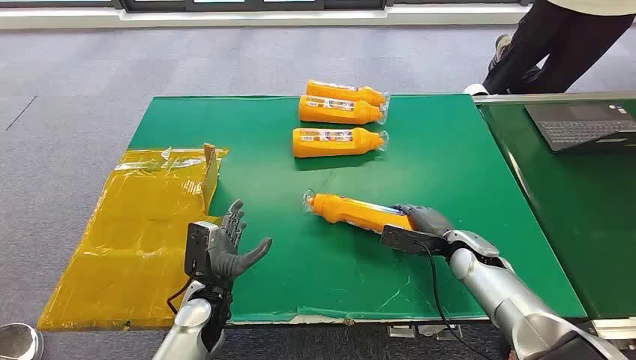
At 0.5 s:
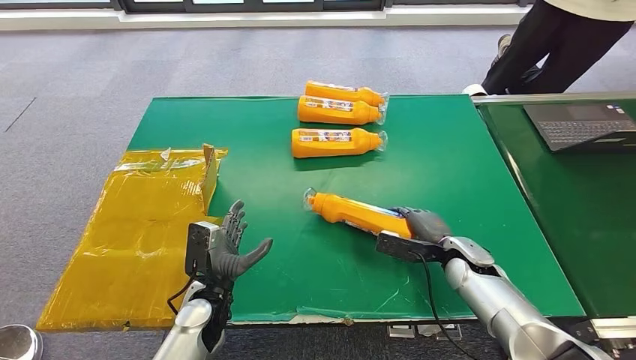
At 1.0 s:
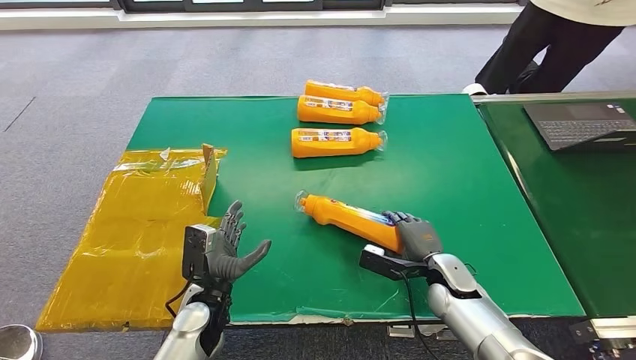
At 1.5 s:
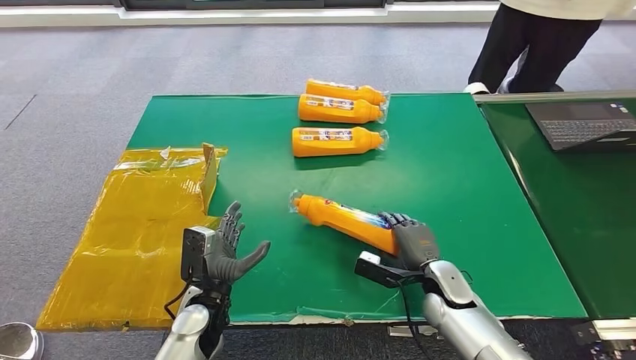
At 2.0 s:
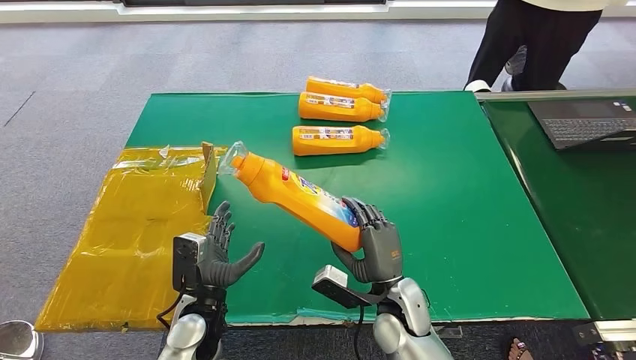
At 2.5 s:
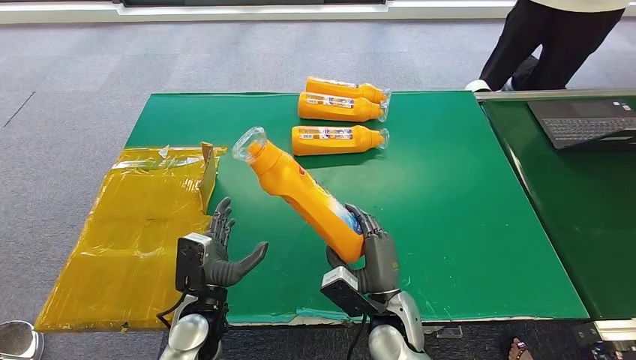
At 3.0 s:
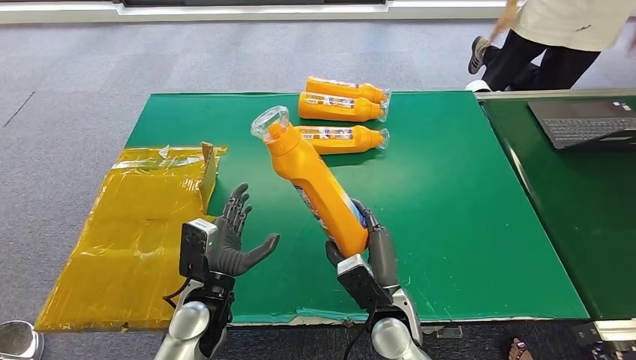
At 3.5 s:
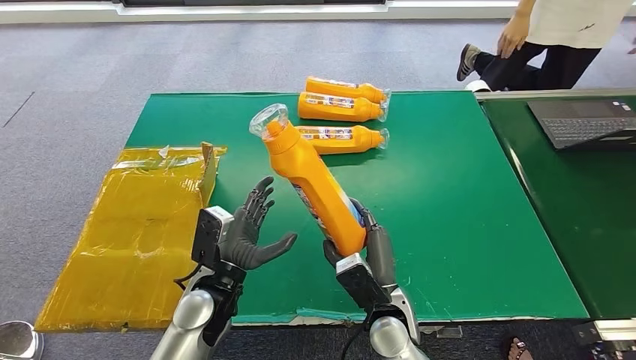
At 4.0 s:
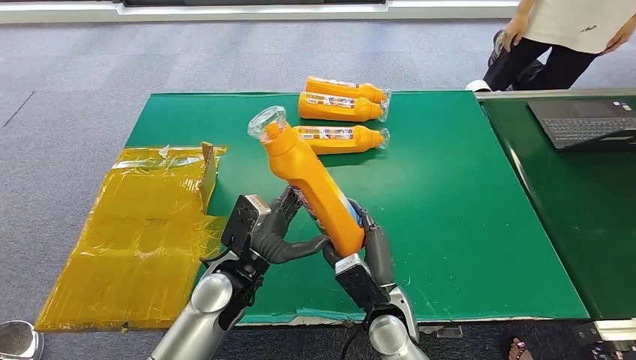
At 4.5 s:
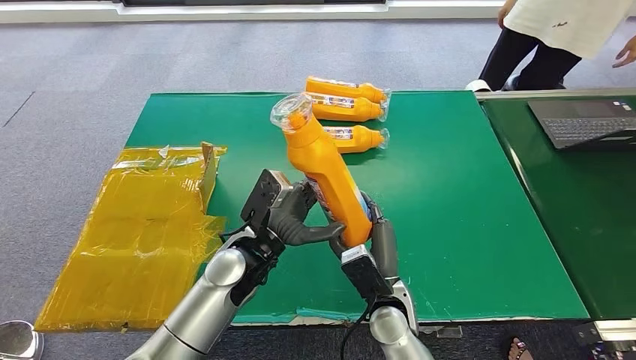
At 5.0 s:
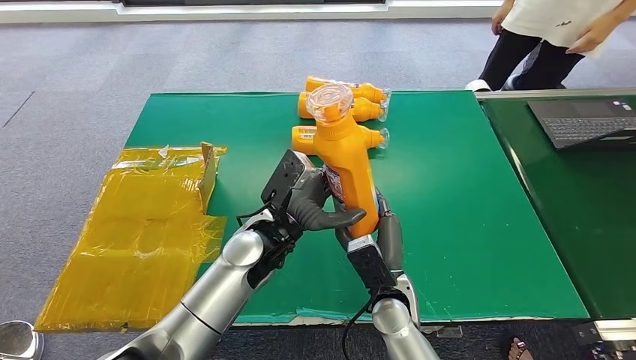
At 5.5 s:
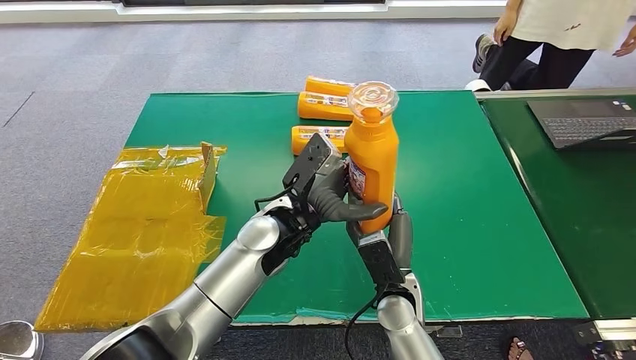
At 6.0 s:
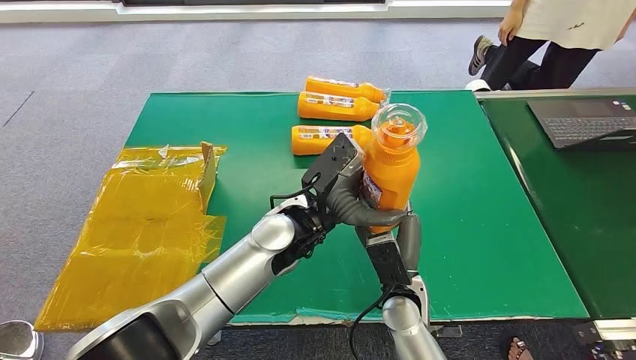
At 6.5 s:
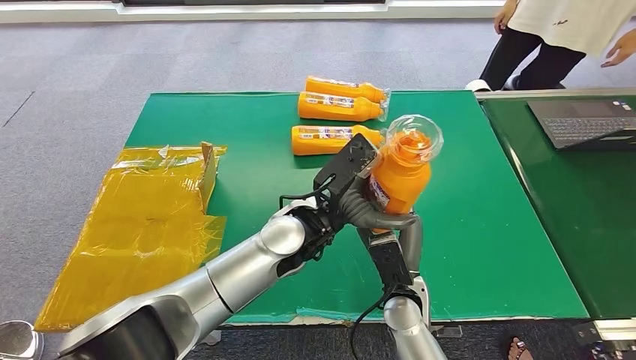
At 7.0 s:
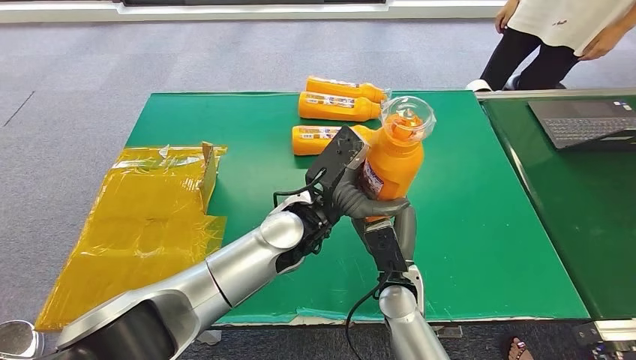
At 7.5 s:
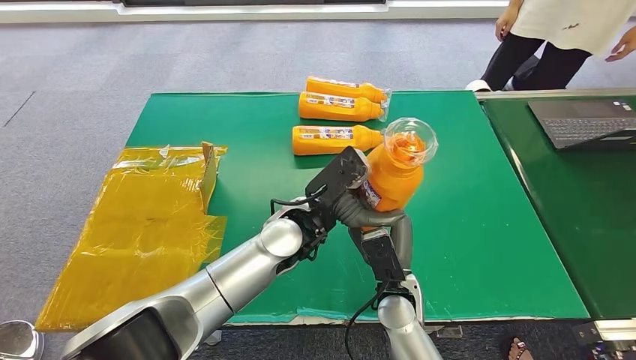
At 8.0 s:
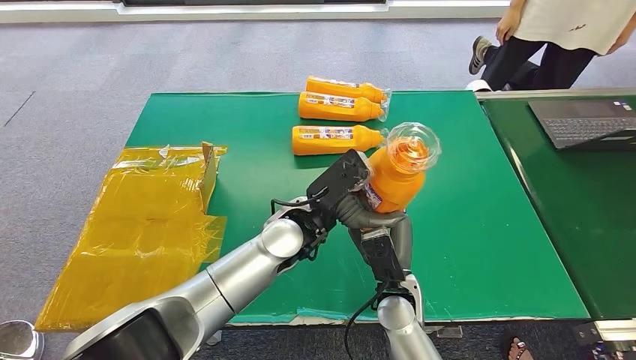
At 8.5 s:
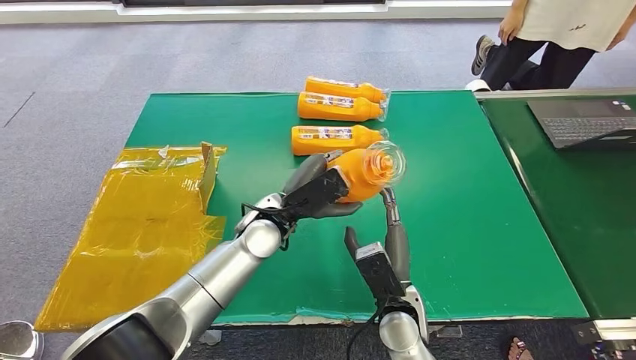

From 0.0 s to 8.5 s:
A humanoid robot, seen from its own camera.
Step, from 0.0 s to 2.0 s: Pick up the bottle from the table.
Step, from 2.5 s to 8.5 s: Turn the bottle to the front side.
From 2.0 s to 4.0 s: The left hand shifts approximately 10 cm upward, to the right and forward.
From 4.0 s to 6.5 s: The left hand goes about 15 cm to the right and upward.
From 6.5 s to 8.5 s: The left hand heads to the left and downward, covering roughly 10 cm.

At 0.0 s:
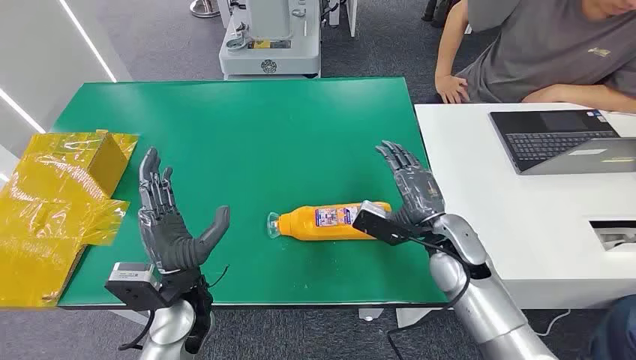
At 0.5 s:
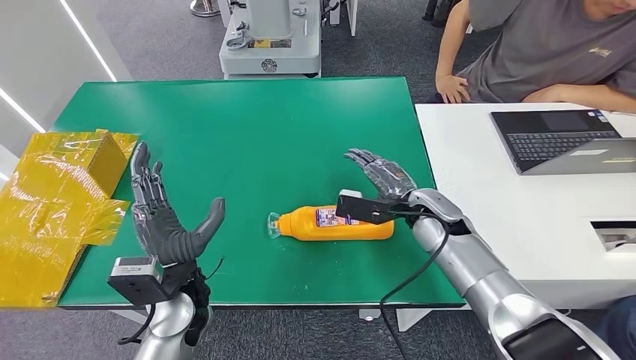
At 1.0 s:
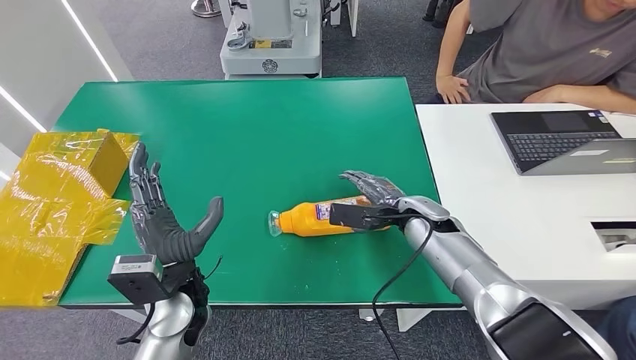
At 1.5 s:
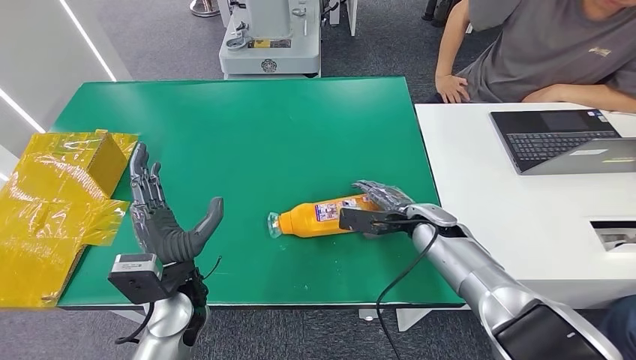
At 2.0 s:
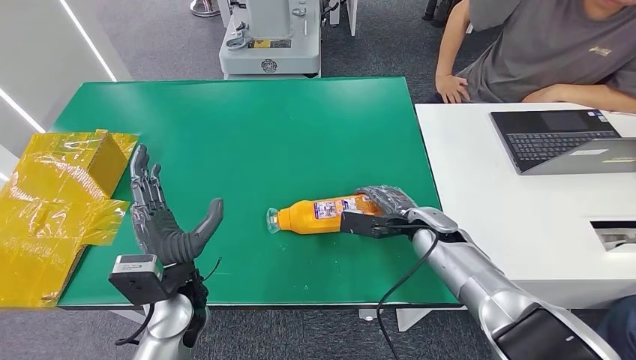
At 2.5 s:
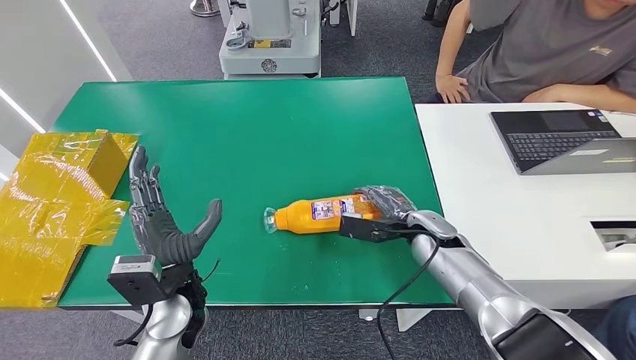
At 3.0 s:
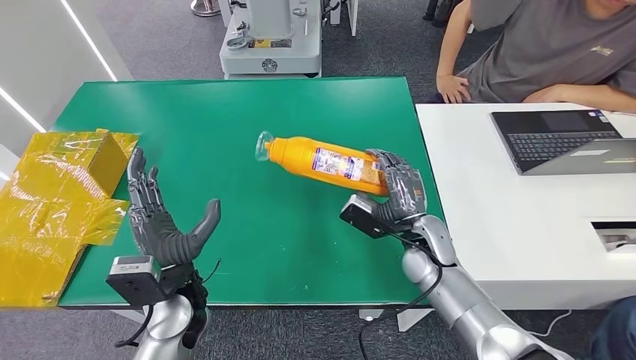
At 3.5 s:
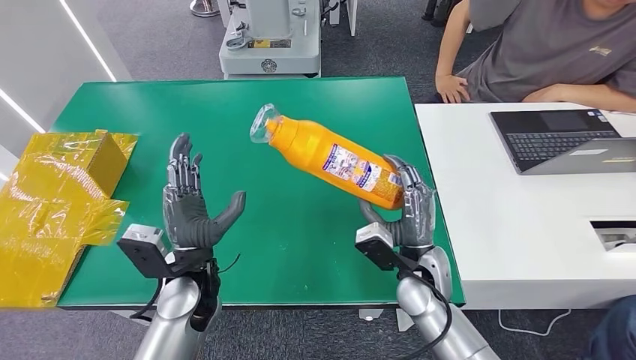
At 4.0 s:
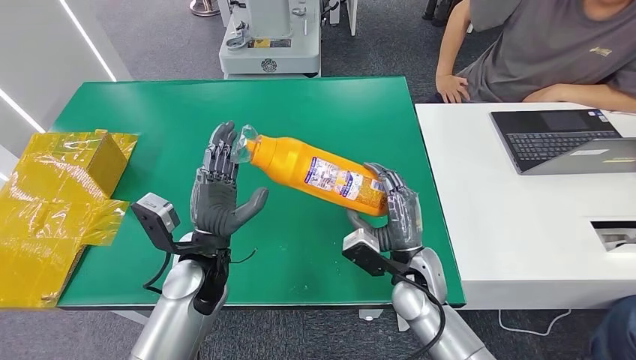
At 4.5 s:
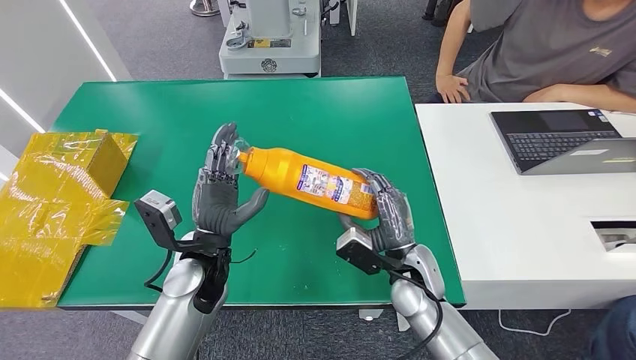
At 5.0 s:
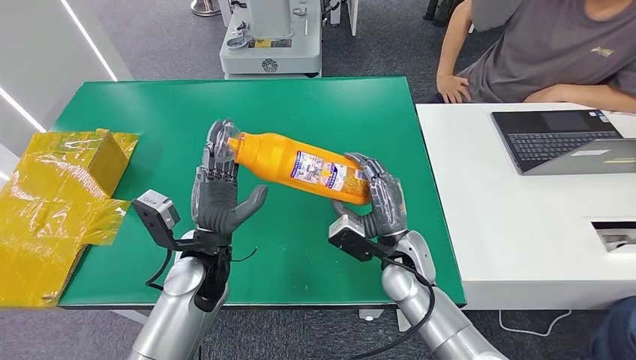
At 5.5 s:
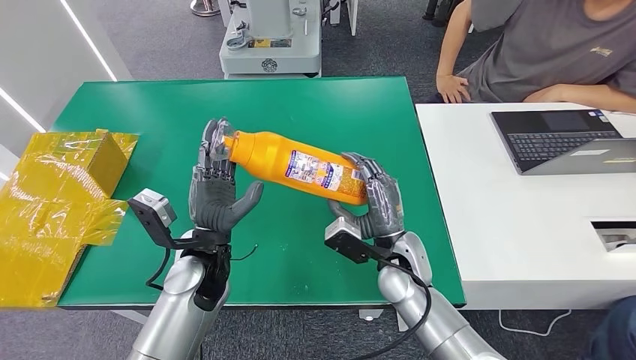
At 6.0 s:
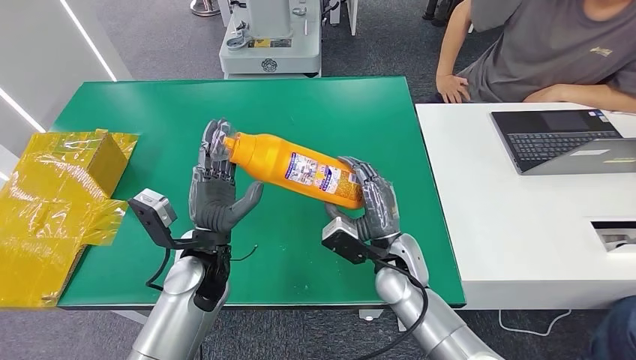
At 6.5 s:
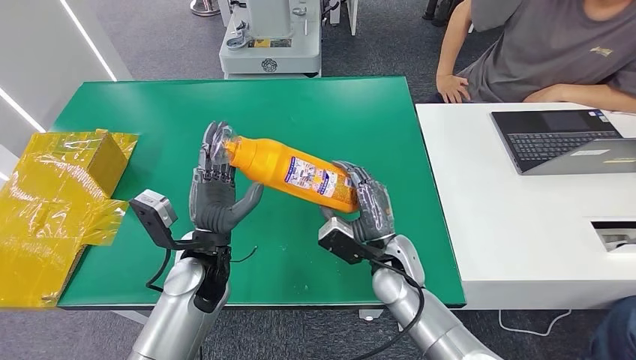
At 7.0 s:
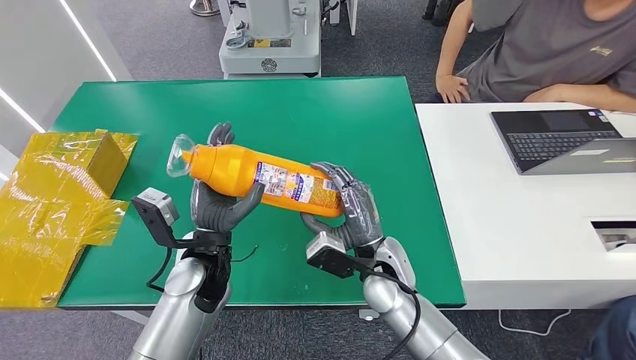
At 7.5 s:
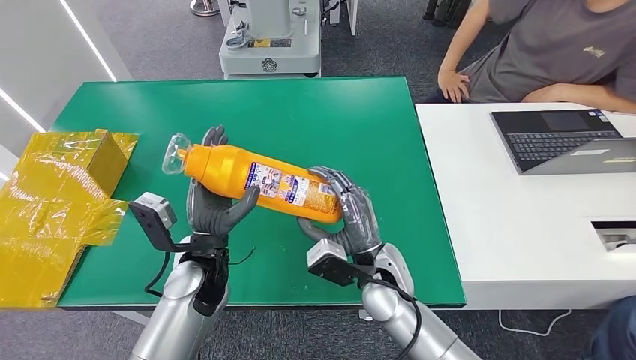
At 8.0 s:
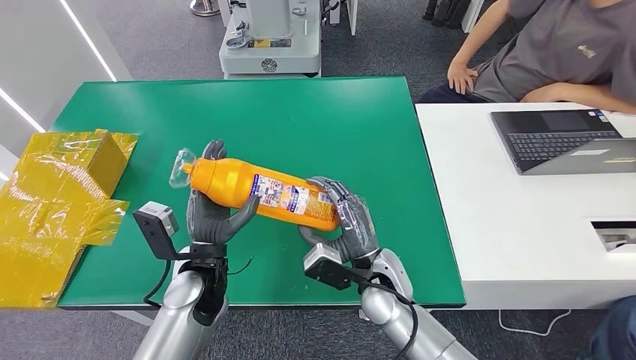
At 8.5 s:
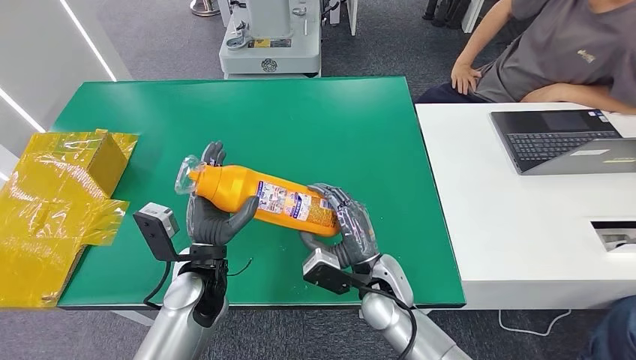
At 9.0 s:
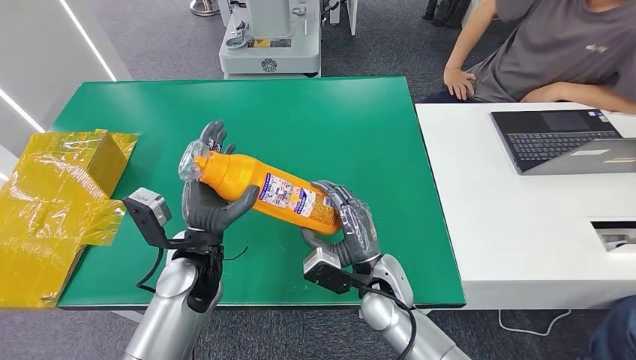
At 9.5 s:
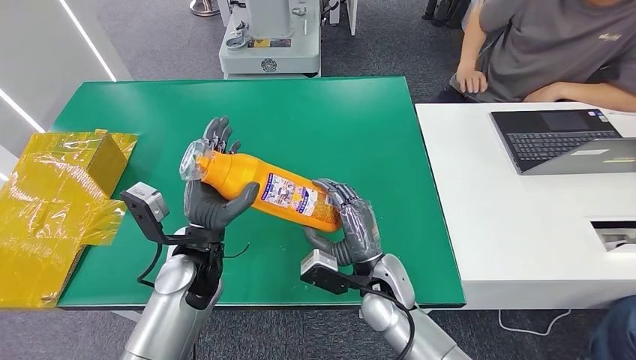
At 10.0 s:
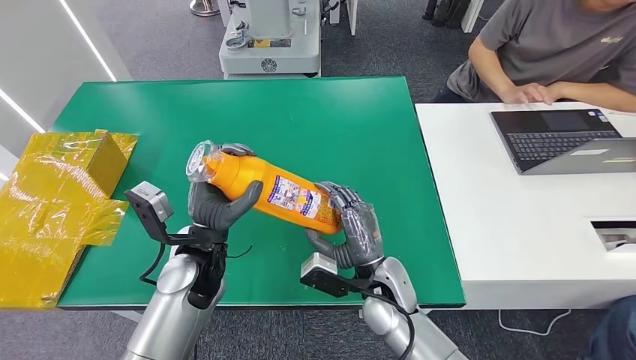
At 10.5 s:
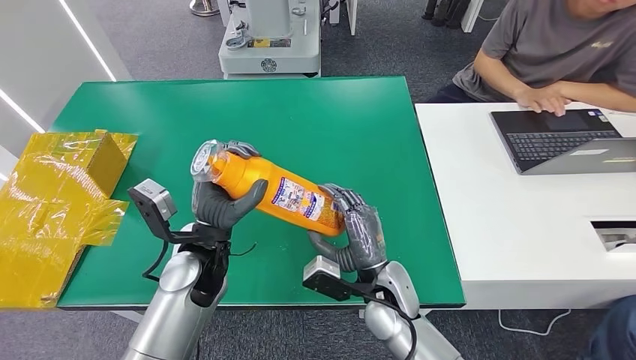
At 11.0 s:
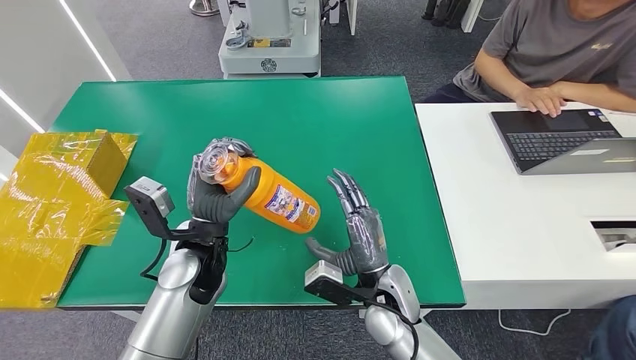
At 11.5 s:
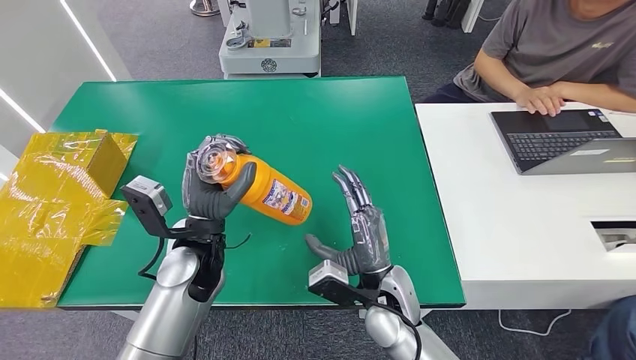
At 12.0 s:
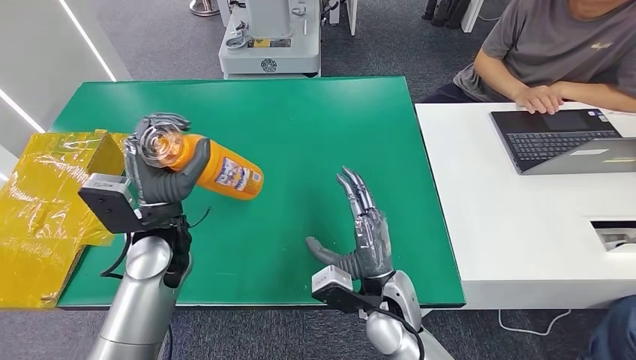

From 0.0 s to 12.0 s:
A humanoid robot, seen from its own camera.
Step, from 0.0 s to 5.0 s: Pick up the bottle from the table.
From 2.0 s to 4.0 s: The right hand moves backward and to the left, approximately 10 cm.
From 4.0 s to 6.0 s: The hands make only small movements.
From 6.0 s to 10.0 s: There are only small adjustments of the hands.
From 10.0 s to 12.0 s: The left hand ends up approximately 5 cm from where it was.
